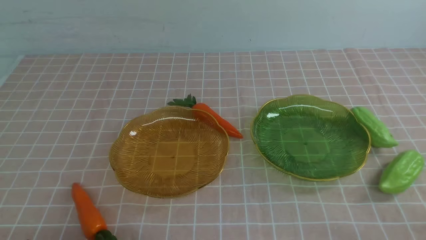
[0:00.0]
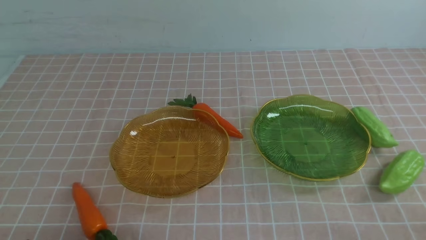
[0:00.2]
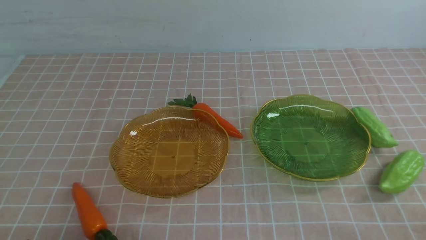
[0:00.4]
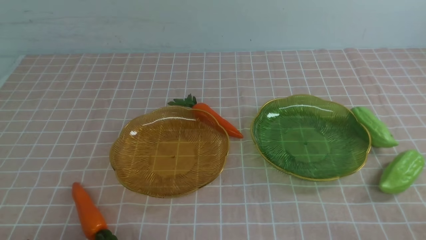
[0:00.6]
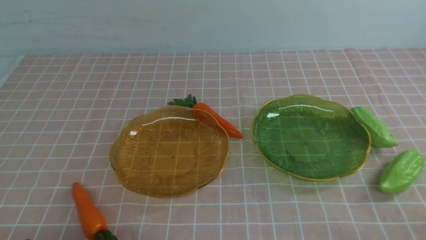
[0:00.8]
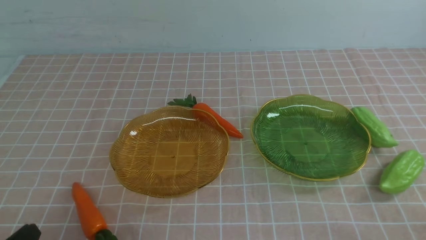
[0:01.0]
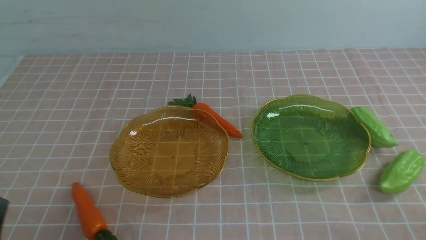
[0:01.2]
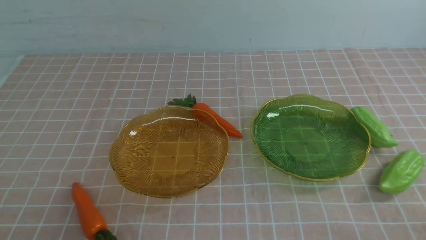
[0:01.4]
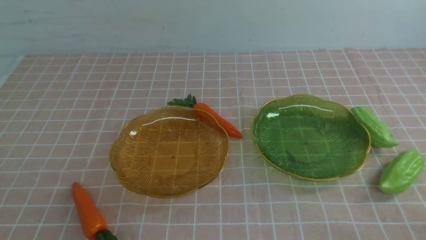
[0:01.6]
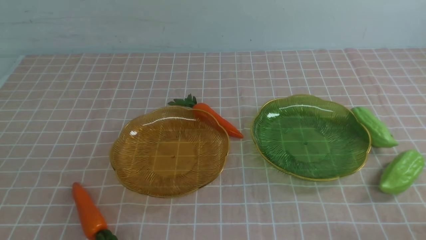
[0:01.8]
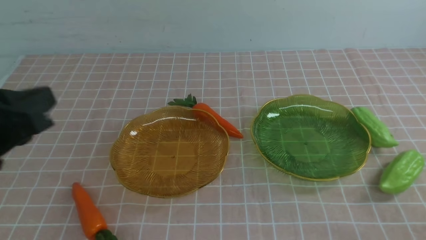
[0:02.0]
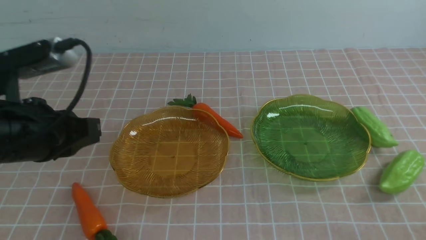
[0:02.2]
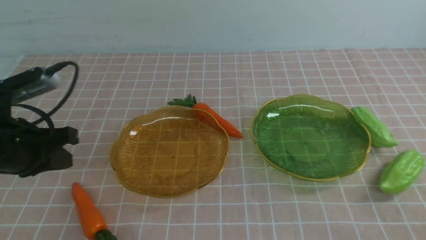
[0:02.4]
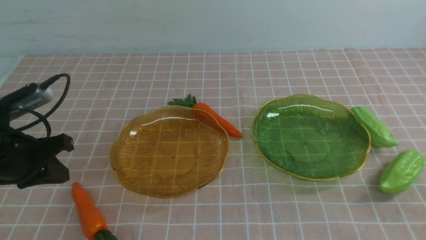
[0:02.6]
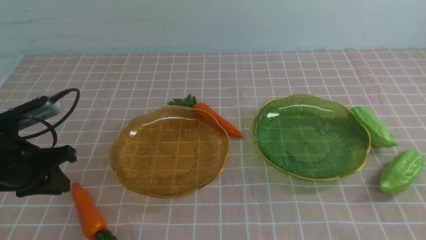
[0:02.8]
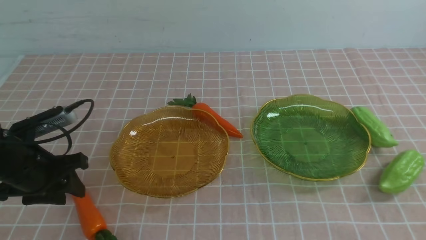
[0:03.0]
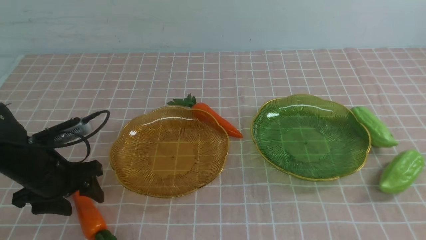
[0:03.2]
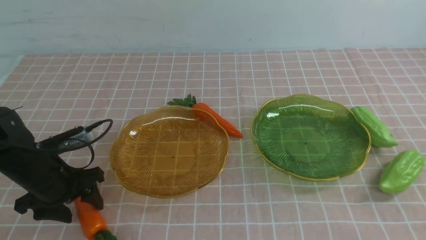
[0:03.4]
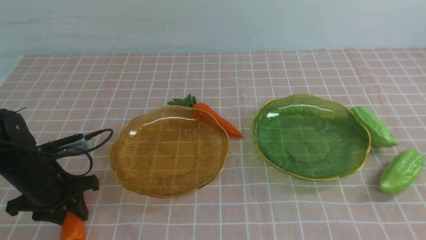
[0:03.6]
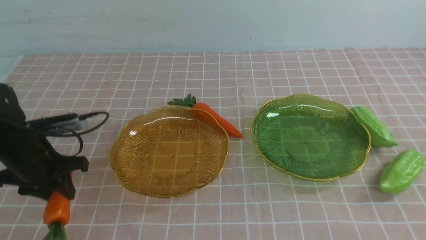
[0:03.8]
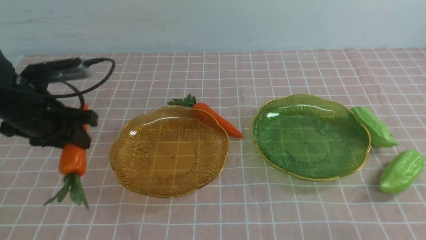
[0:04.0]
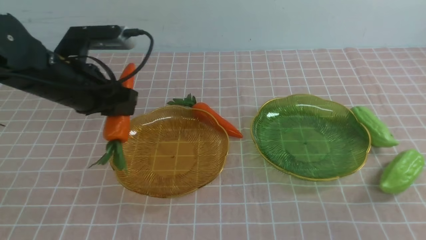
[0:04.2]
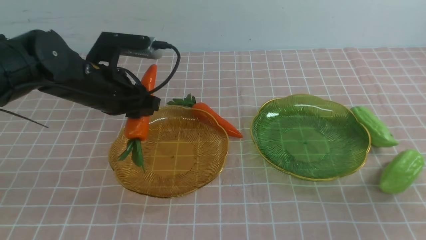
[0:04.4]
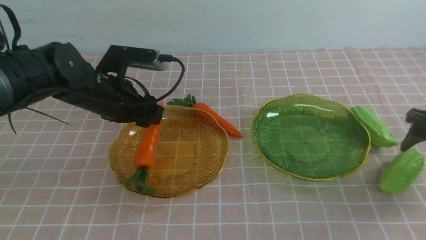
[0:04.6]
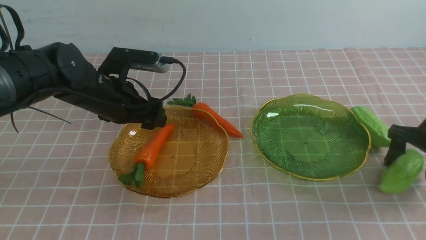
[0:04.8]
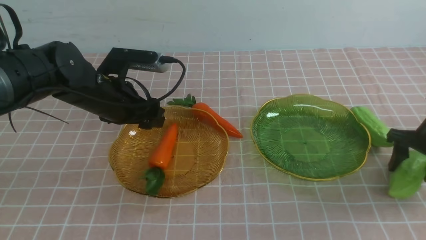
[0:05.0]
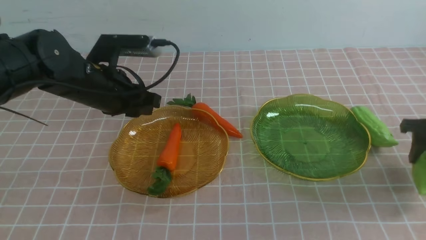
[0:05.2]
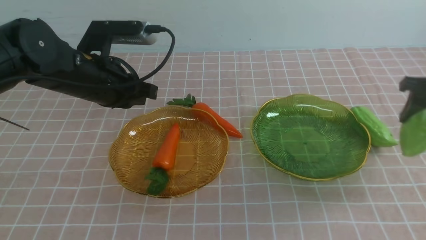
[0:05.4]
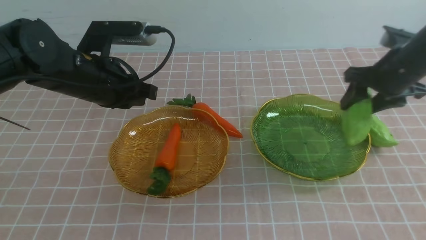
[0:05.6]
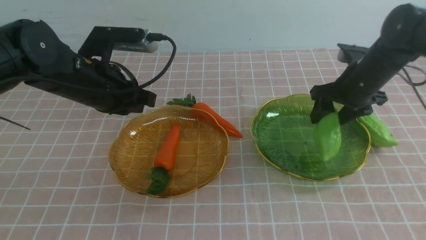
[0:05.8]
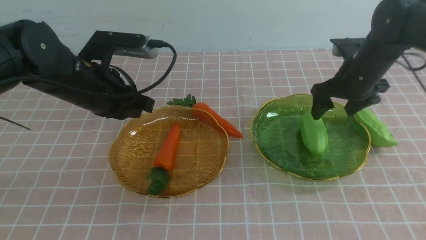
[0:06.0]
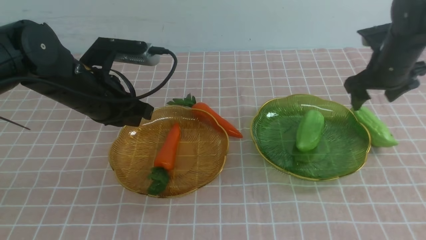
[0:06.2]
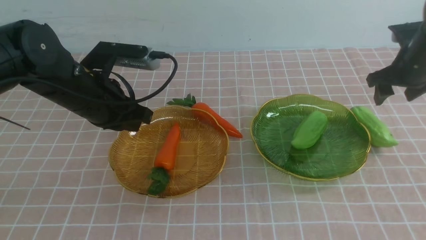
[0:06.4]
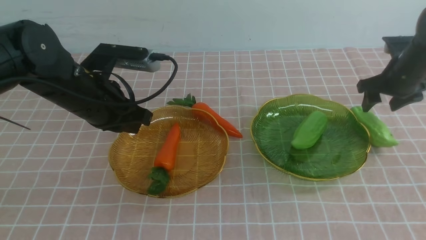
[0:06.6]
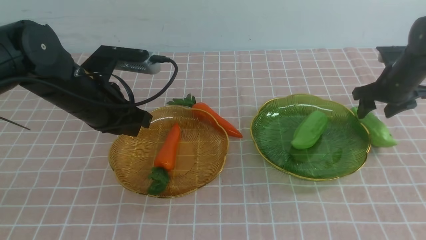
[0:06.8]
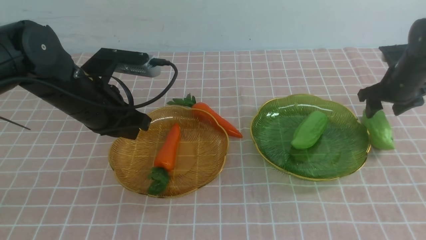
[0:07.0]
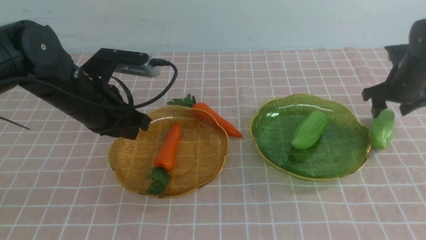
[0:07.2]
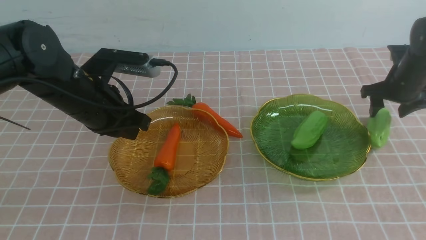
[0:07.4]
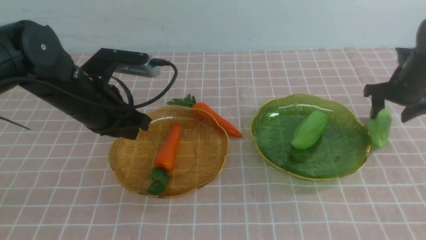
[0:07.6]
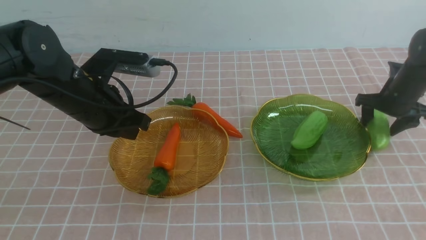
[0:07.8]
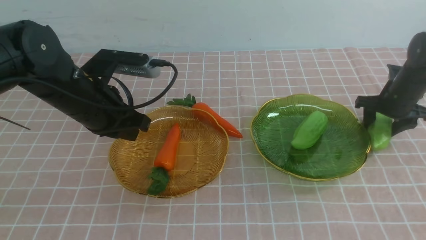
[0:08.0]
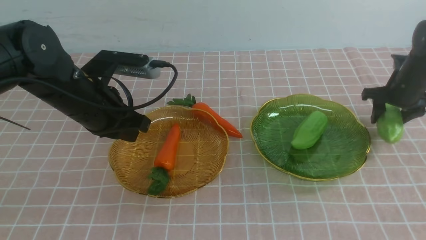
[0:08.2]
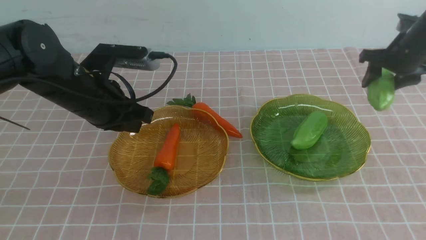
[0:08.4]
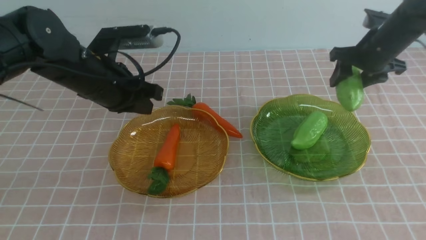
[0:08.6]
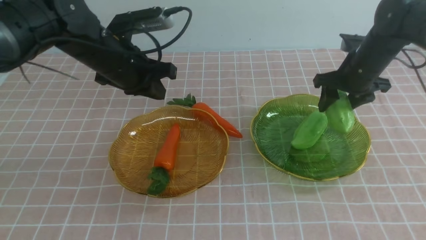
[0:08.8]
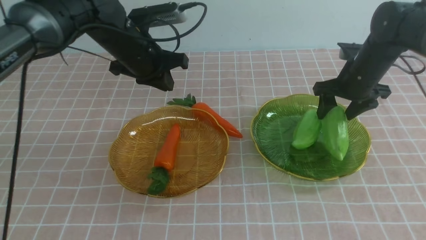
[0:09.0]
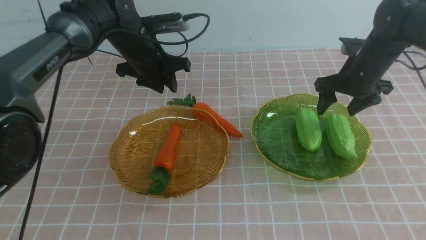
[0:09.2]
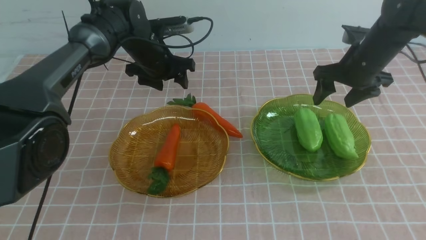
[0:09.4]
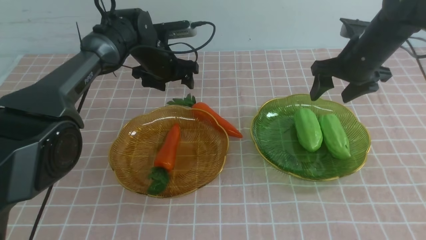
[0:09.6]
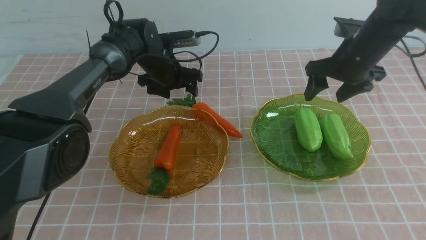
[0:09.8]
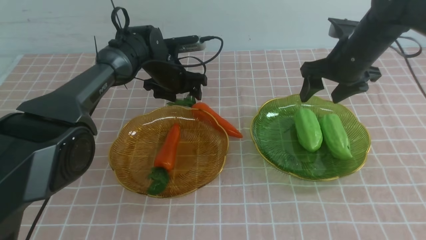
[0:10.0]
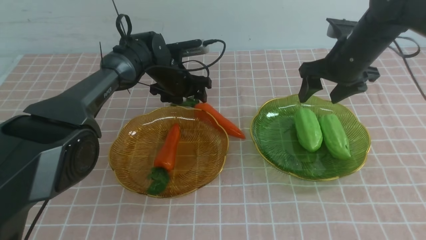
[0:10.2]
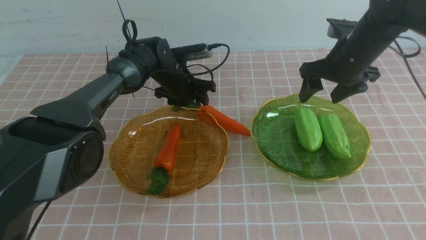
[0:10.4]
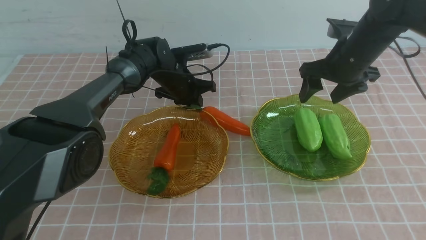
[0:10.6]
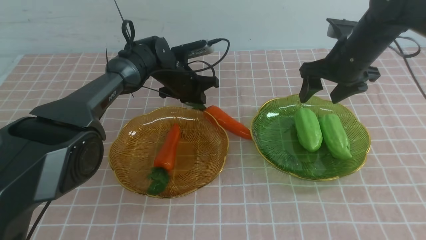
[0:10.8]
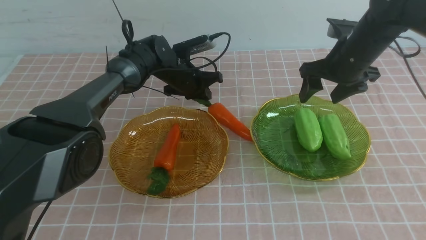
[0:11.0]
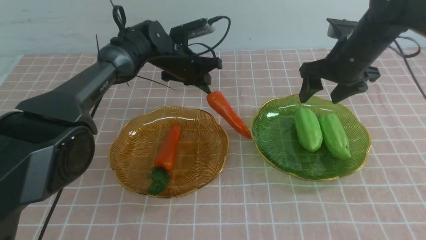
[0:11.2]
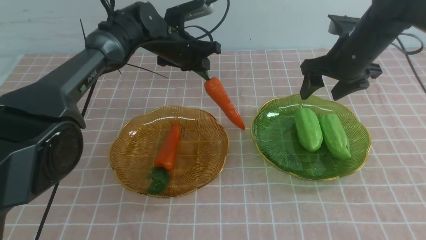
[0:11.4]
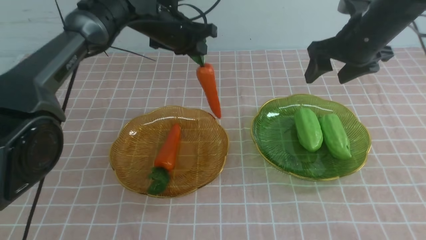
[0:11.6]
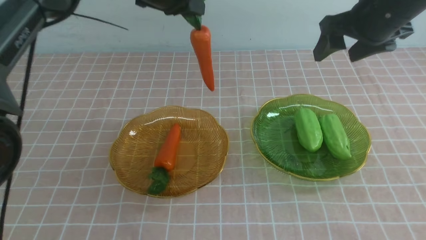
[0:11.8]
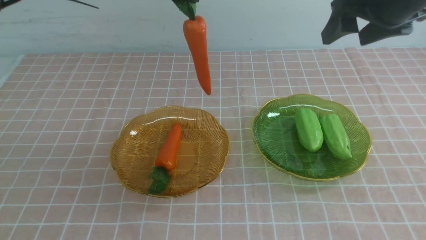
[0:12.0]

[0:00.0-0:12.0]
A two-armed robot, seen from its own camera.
Step, 0:00.0 to 0:04.8: use the left arm to grab a carrot and put it into the left plate.
Step, 0:05.0 to 0:09.0: use the right arm to grab a chayote and put it into the right plate.
0:01.6 to 0:03.0: The left gripper goes some 25 cm forward and downward, and opens.
0:03.0 to 0:04.4: The left gripper moves to the right, upward and forward, roughly 15 cm; the right gripper is displaced forward, to the right and downward by some 25 cm, and opens up.
0:04.4 to 0:06.0: The left gripper closes up; the right gripper is displaced to the left and forward by some 20 cm, and opens.
0:06.0 to 0:07.6: The right gripper moves to the right and downward, some 10 cm.
0:07.6 to 0:09.0: The left gripper heads forward, covering some 15 cm, and opens its fingers, while the right gripper travels to the left and upward by about 10 cm.
0:09.0 to 0:10.4: The right gripper changes place by approximately 5 cm. Meanwhile the left gripper travels downward and forward by about 10 cm, and opens and closes again.
0:10.4 to 0:12.0: The left gripper moves upward and backward, about 30 cm, and closes up. The right gripper goes approximately 15 cm upward and backward.

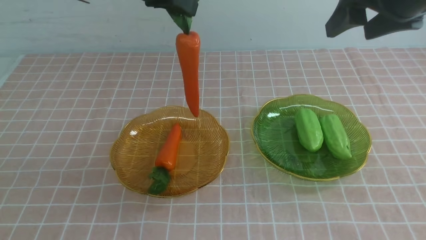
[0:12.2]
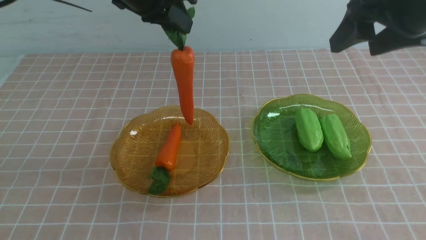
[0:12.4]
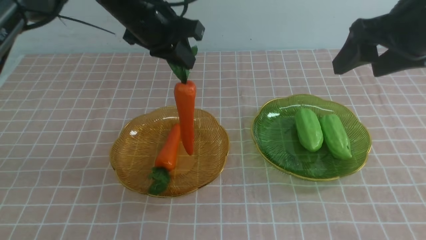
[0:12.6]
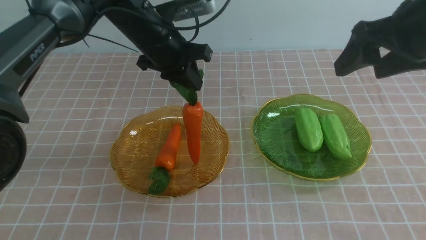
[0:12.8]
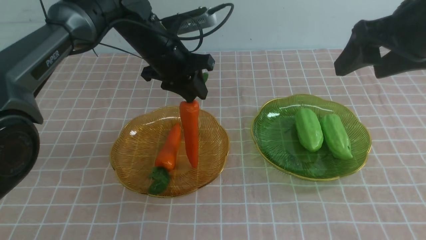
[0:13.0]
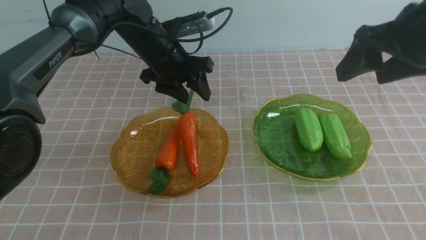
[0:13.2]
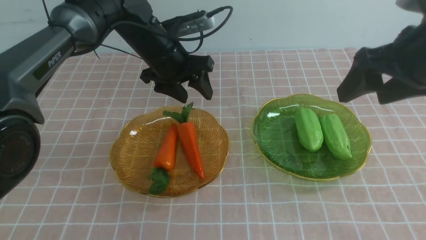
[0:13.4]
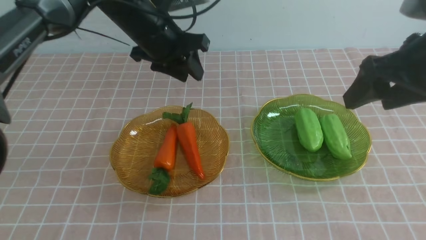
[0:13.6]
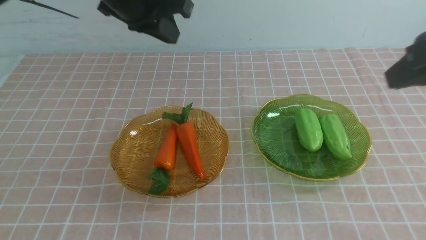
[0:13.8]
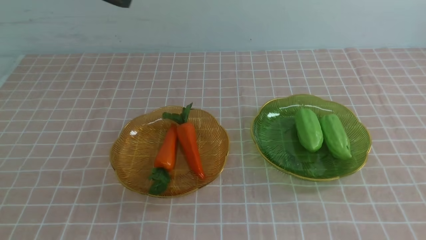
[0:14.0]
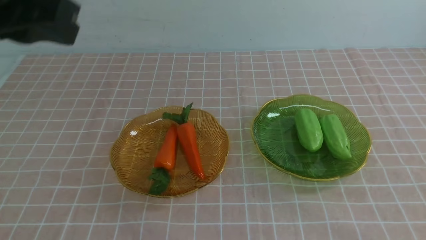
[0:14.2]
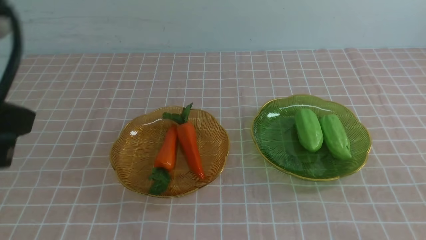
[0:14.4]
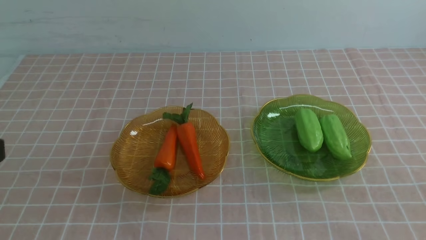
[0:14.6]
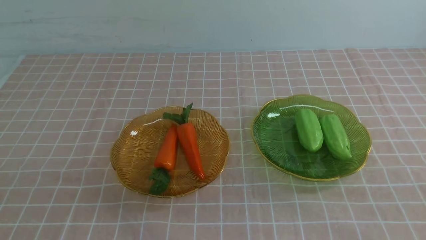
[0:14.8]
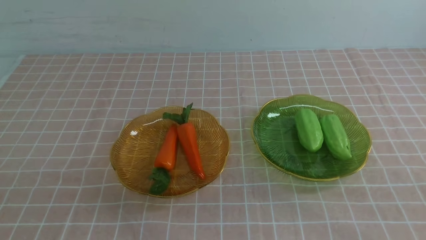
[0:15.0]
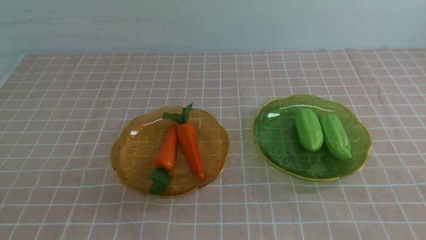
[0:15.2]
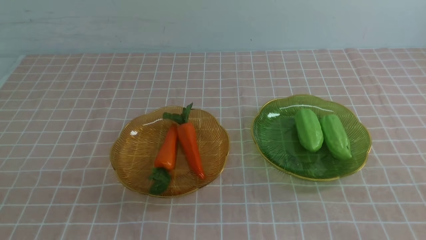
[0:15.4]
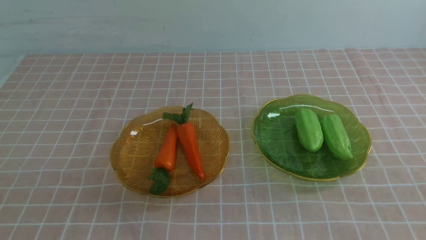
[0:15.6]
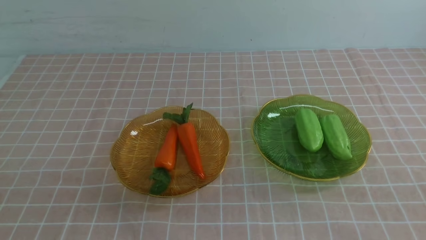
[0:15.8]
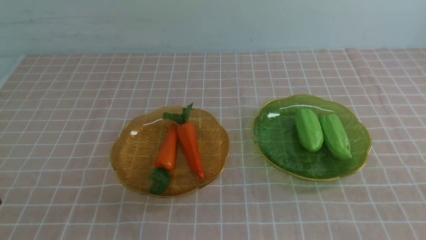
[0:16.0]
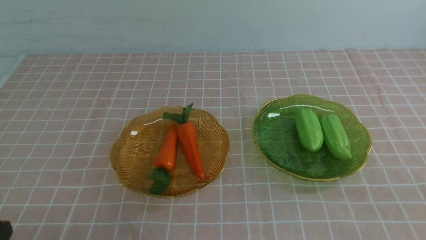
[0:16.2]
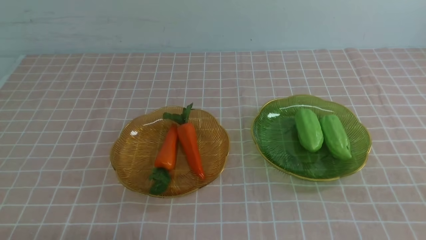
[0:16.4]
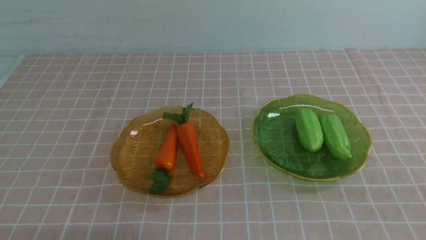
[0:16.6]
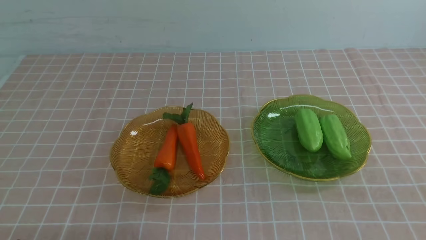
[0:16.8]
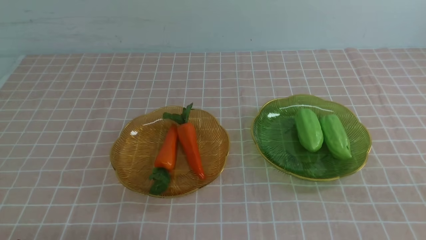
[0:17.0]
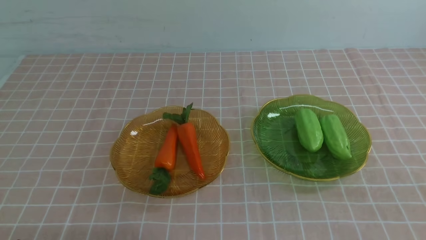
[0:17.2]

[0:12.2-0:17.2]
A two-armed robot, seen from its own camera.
0:12.2 to 0:13.8: The grippers both shift backward by some 25 cm. The left gripper opens, then closes once more. The right gripper closes its fingers.
0:13.8 to 0:15.6: The right gripper shifts roughly 5 cm downward; the left gripper shifts some 30 cm downward and backward.
